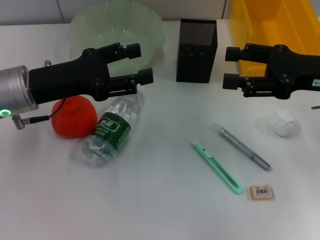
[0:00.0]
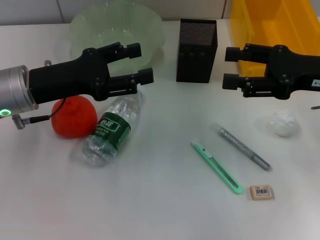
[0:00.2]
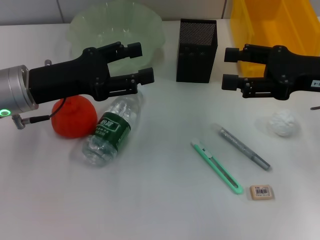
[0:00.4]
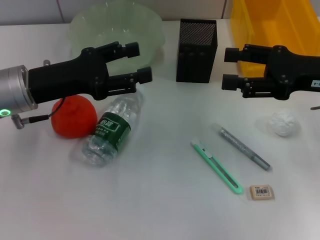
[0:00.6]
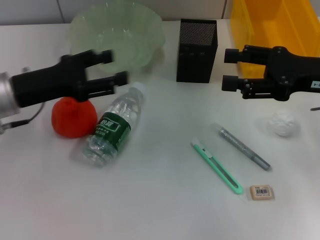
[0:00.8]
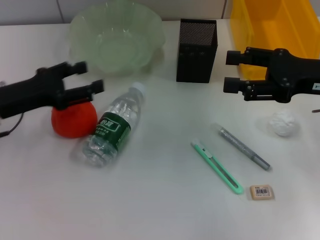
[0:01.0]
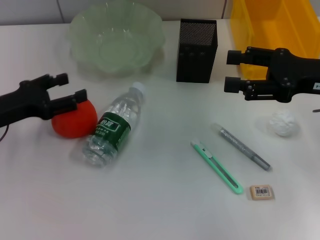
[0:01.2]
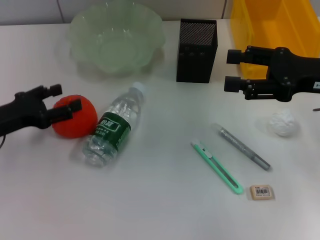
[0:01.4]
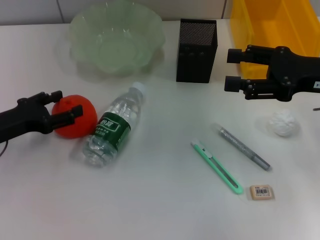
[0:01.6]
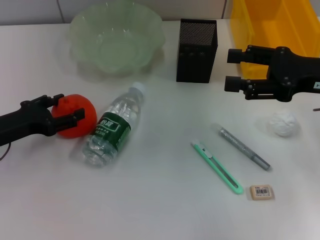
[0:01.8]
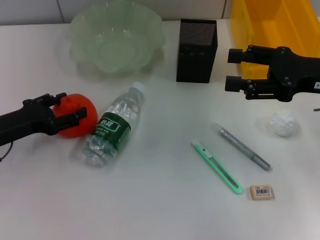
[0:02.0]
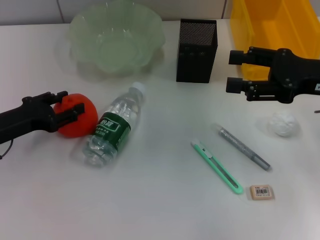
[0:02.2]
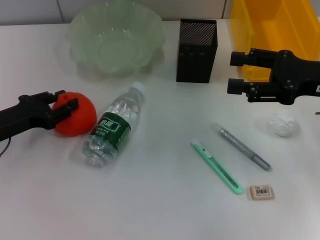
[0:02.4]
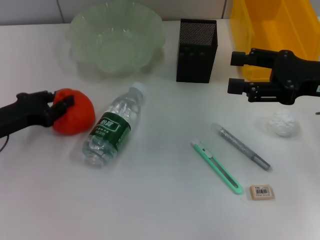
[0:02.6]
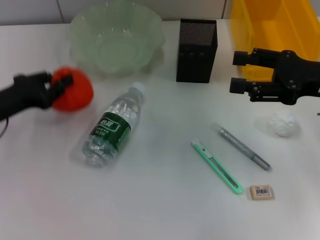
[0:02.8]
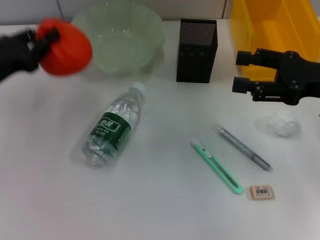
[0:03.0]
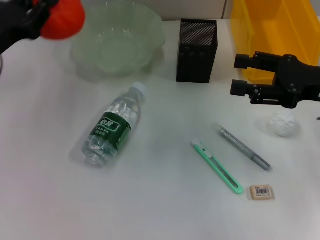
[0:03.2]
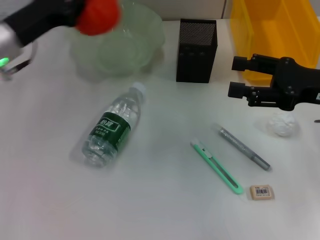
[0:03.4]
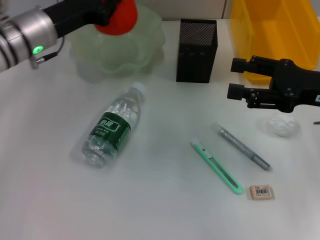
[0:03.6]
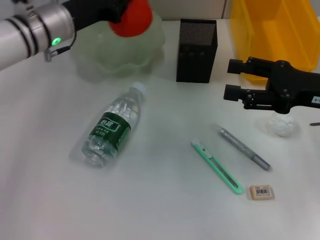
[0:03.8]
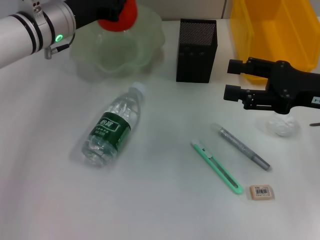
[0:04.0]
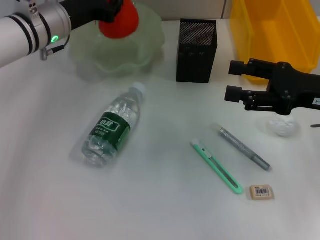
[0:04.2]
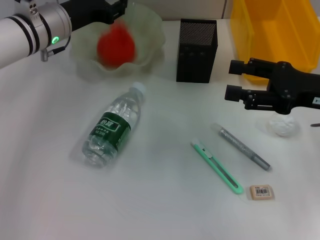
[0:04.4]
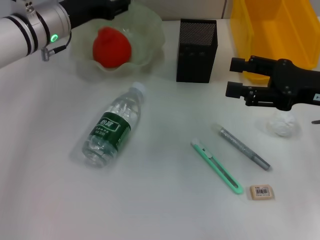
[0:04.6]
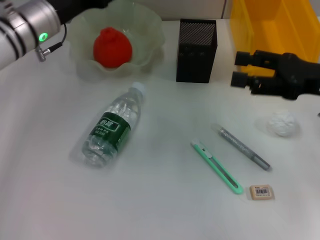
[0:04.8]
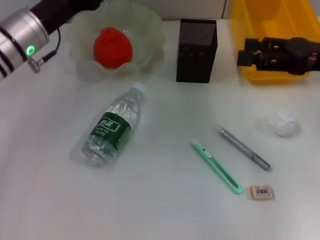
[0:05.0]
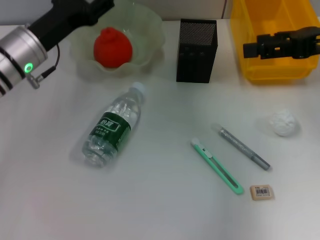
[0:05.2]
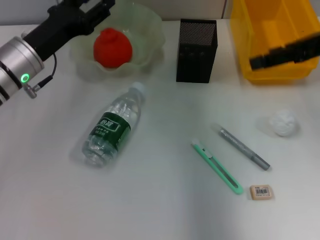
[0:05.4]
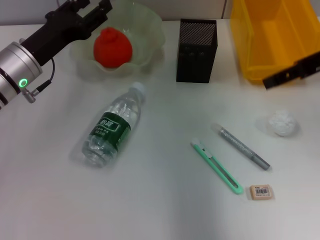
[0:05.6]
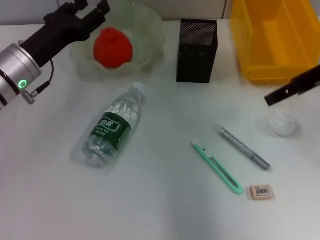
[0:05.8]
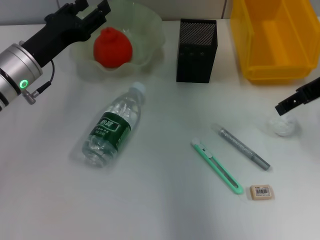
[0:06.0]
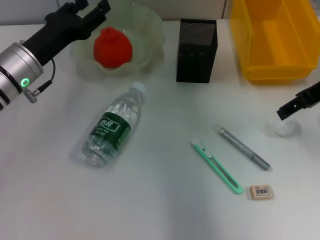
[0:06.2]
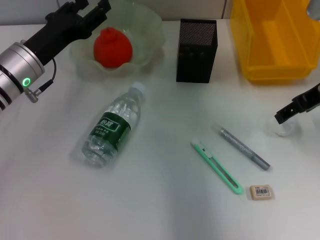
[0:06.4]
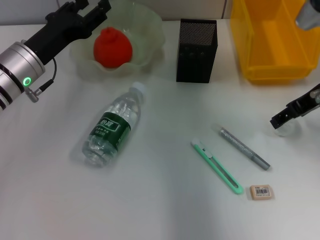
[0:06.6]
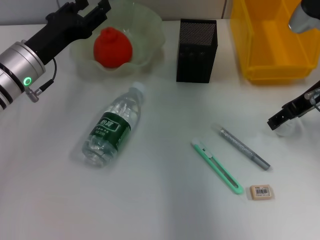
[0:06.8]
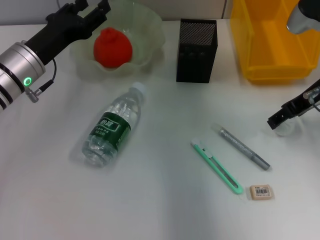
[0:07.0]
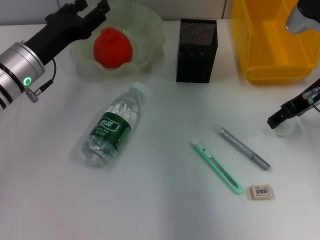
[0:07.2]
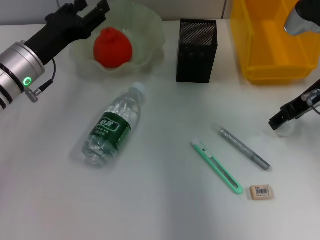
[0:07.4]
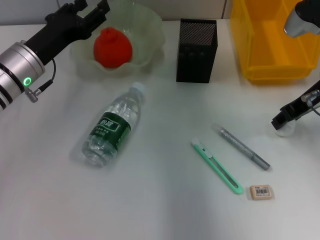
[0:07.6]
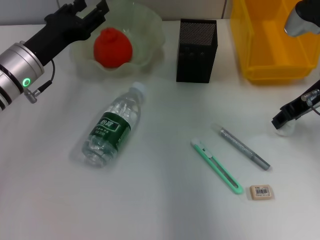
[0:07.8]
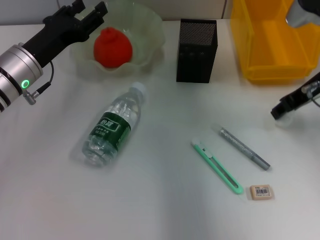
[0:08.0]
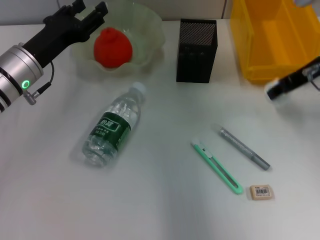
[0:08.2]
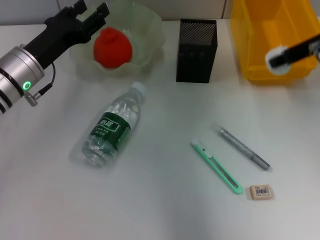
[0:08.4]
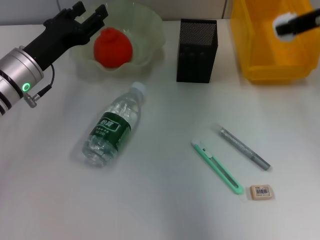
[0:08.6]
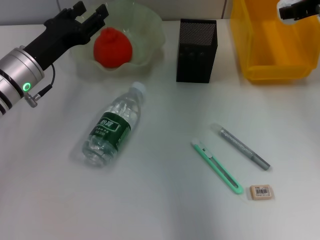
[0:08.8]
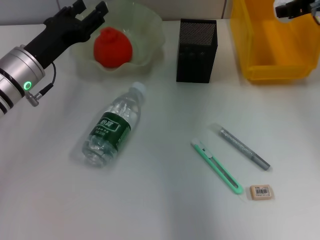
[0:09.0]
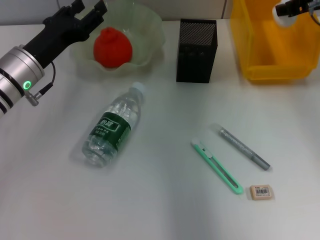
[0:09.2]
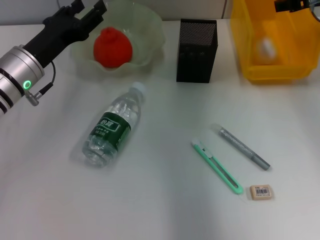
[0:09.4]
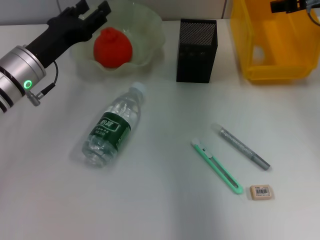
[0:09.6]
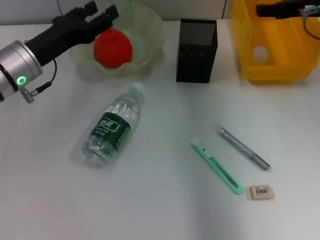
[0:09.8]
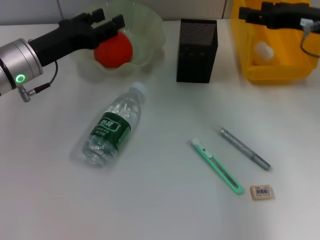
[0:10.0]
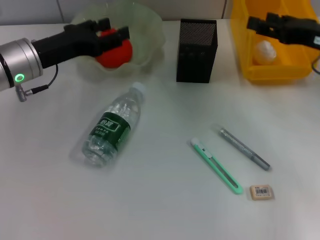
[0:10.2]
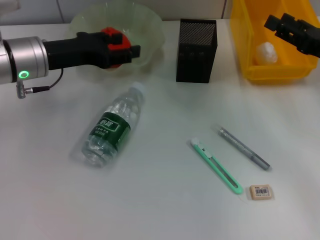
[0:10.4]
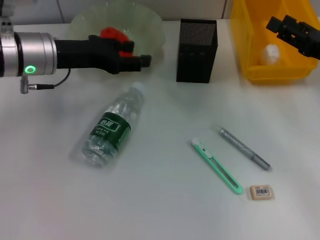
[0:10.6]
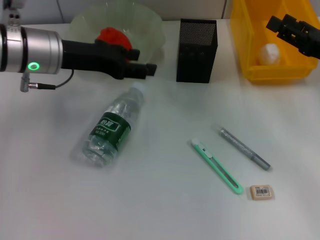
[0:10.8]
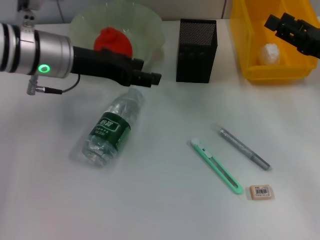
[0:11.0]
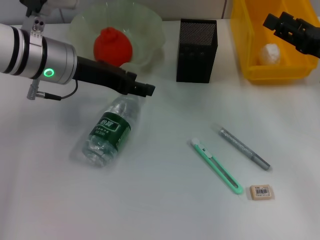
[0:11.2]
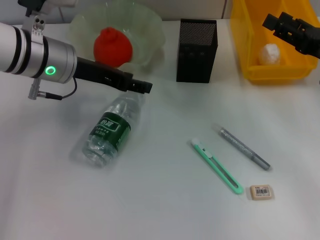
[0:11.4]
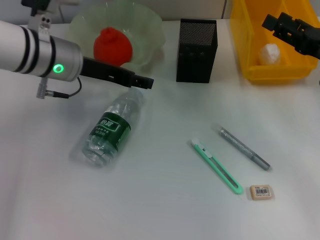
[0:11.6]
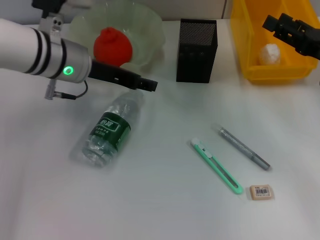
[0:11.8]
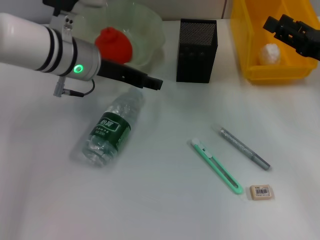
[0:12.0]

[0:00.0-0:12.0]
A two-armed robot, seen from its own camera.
Step, 0:00.0 to 0:02.4: Grab the orange with the left hand.
Step, 0:02.8 to 0:04.4: Place the orange into the fruit bowl with the left hand.
Step, 0:04.6 to 0:07.8: Grab the paper ball with the right hand.
Step, 0:08.0 to 0:09.4: Place the paper ball into the trash can with the right hand.
0:00.0 to 0:01.6: The left gripper heads to the left and downward, covering some 10 cm.
0:01.6 to 0:03.0: The left gripper moves roughly 5 cm, and closes up.
0:03.0 to 0:04.4: The left gripper is displaced forward and to the right by roughly 15 cm, and opens.
0:04.4 to 0:06.0: The left gripper is displaced backward by about 10 cm, and opens up. Meanwhile the right gripper travels upward by about 10 cm.
0:06.0 to 0:07.6: The right gripper heads downward, covering some 5 cm.
0:07.6 to 0:09.0: The right gripper moves upward, about 5 cm, and closes up.
0:09.0 to 0:10.4: The right gripper moves downward, backward and to the right, about 15 cm, and opens its fingers.
0:10.4 to 0:12.0: The left gripper heads to the right, covering roughly 5 cm.

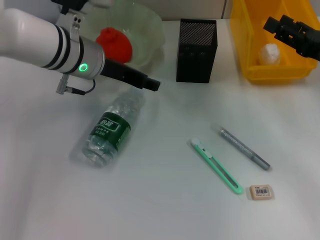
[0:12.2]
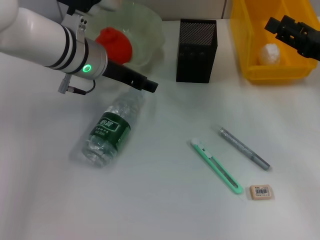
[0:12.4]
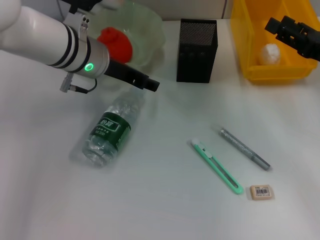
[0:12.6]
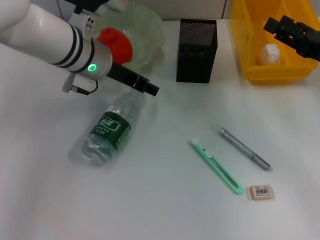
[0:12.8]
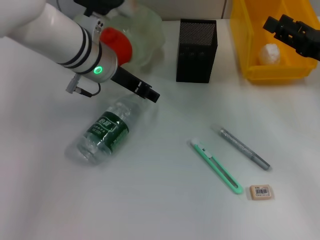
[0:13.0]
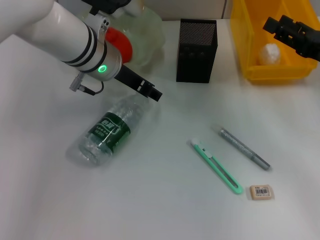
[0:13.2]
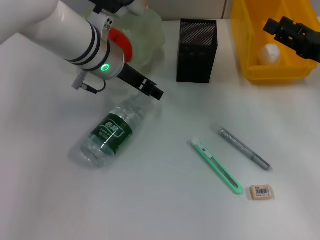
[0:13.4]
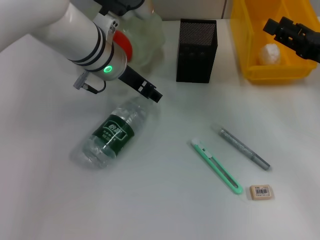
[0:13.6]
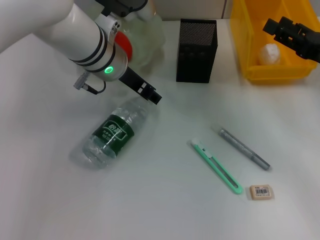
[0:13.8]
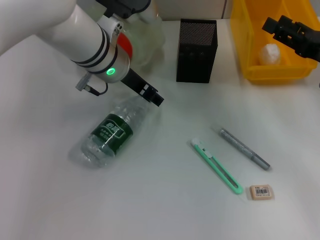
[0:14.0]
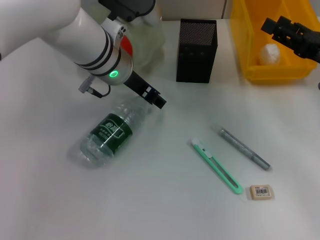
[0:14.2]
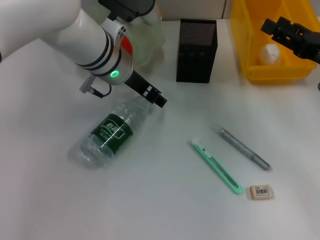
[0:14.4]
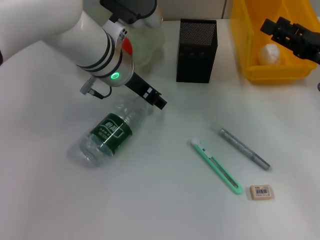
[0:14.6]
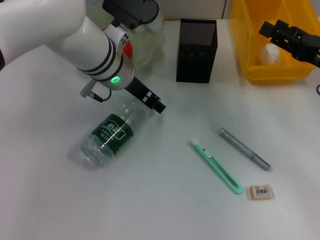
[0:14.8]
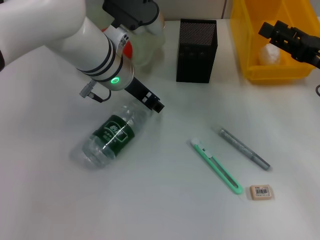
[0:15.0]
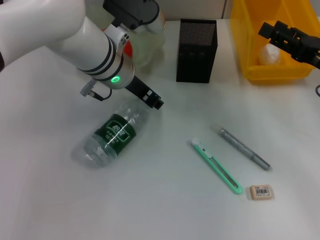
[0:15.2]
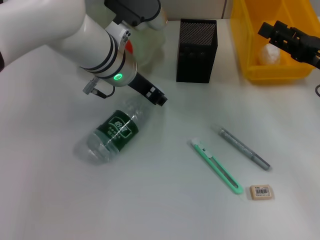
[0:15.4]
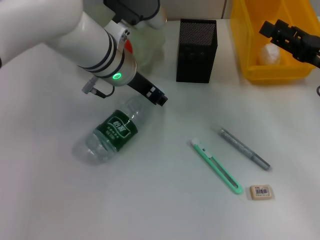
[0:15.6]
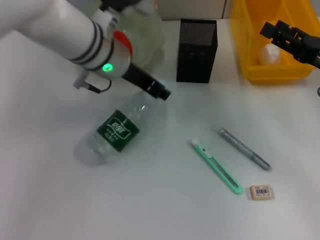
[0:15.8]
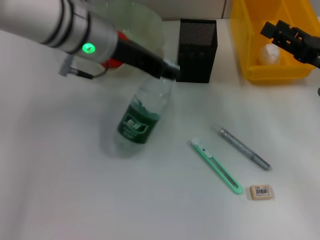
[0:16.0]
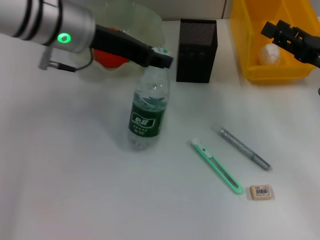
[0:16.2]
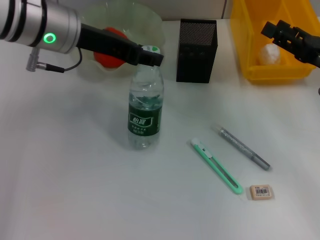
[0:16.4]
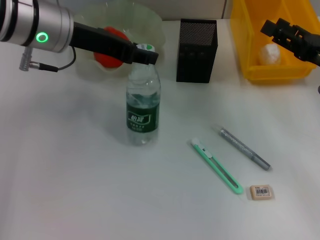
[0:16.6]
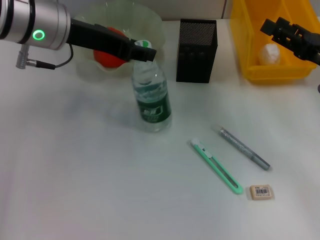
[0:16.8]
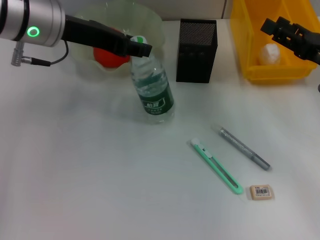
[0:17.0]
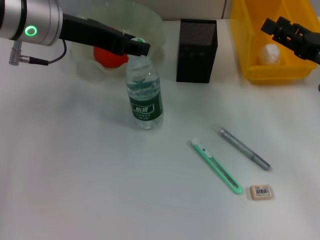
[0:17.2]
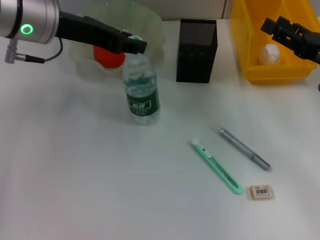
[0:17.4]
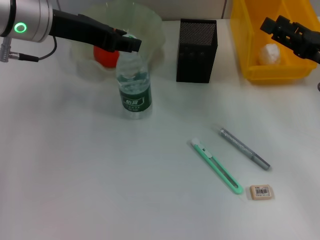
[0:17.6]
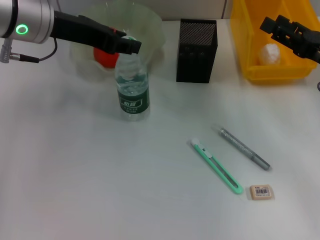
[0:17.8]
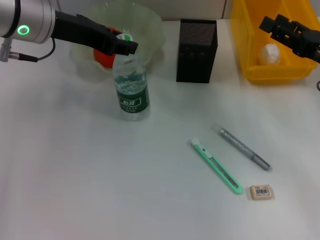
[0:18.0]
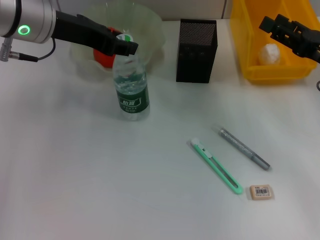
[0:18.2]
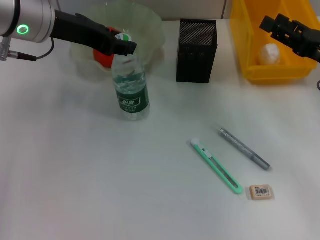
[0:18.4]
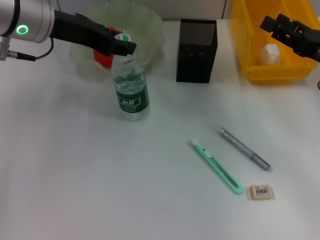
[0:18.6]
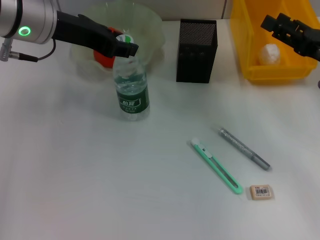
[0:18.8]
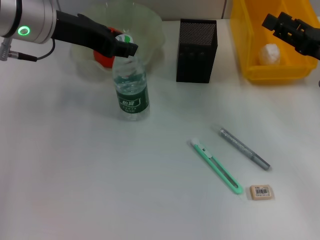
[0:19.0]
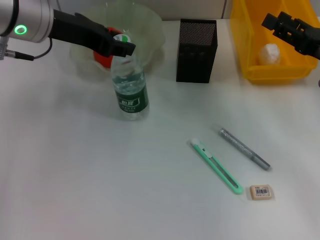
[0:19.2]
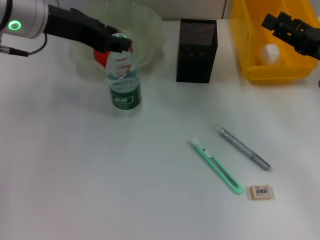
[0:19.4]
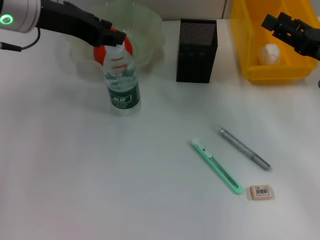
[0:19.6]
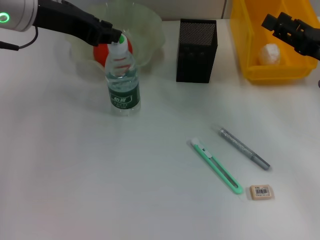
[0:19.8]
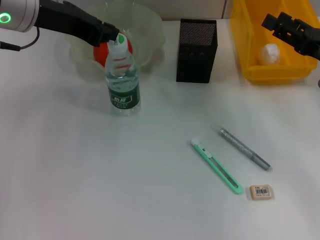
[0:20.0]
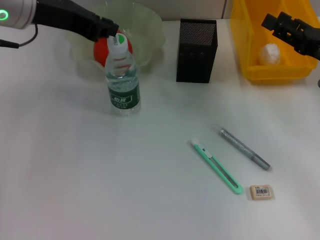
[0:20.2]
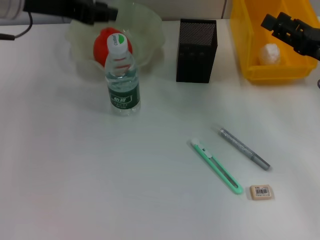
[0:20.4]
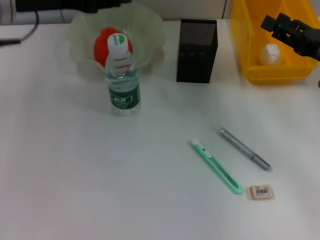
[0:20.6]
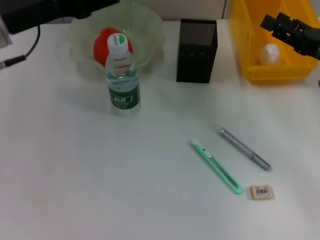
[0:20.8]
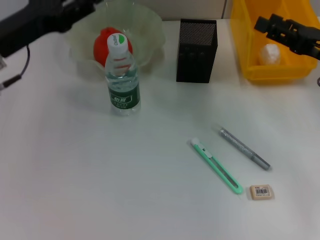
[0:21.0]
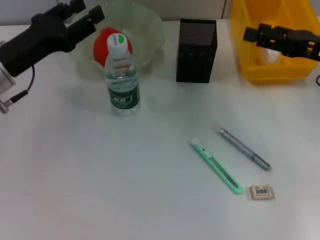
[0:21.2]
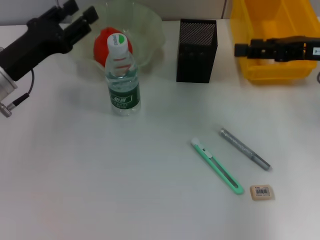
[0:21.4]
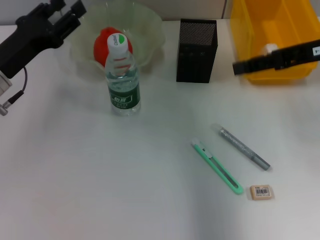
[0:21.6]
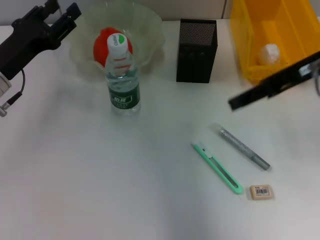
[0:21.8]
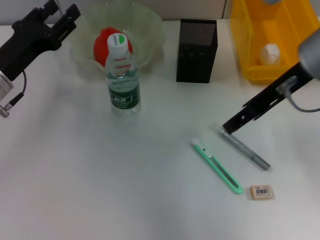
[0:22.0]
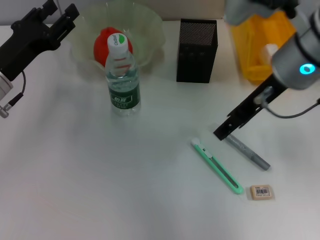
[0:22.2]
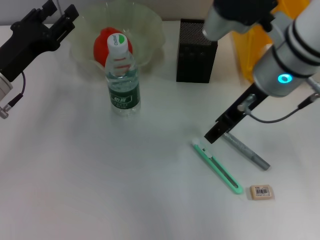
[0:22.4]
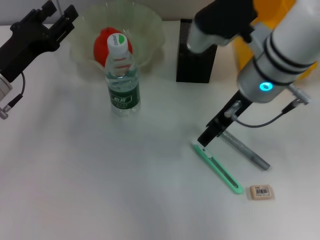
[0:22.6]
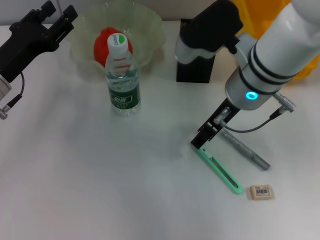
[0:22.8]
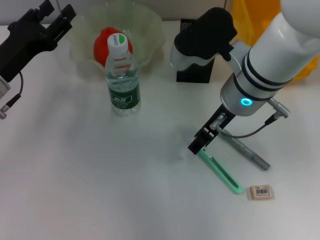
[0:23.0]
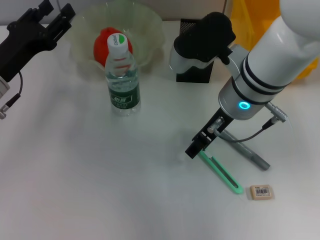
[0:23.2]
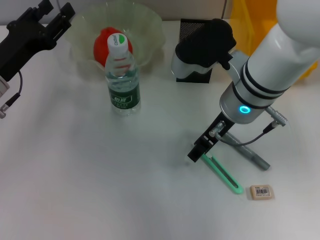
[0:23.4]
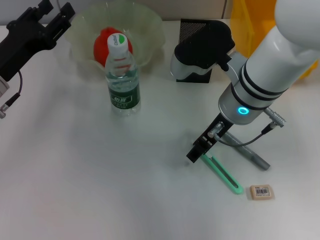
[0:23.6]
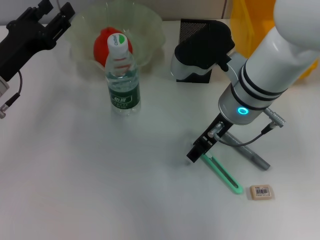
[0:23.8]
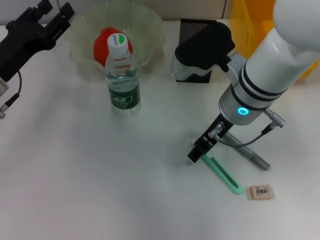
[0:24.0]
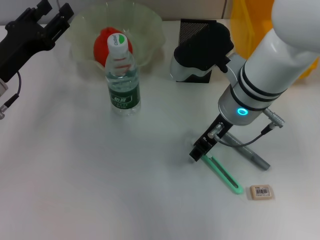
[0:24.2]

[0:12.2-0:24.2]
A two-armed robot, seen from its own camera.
Step, 0:12.2 to 0:15.2: Grab the water bottle with the left hand.
Step, 0:15.6 to 0:19.4: Place the water bottle on the table with the left hand.
0:12.2 to 0:15.2: The grippers make only small movements.
0:15.2 to 0:16.6: The left gripper is displaced to the left and upward by approximately 10 cm.
0:16.6 to 0:19.8: The grippers move only a little.
0:19.8 to 0:21.2: The left gripper shifts roughly 15 cm downward and to the left, and opens up.
0:21.2 to 0:22.6: The right gripper heads to the left, covering about 20 cm.
0:22.6 to 0:24.2: The grippers make only small movements.
